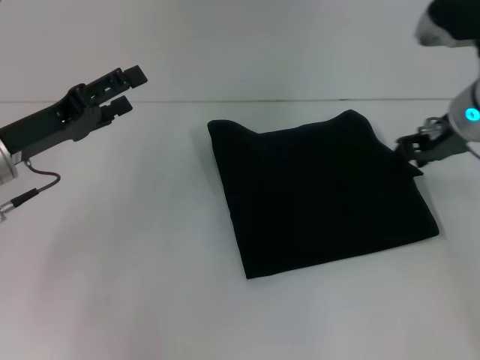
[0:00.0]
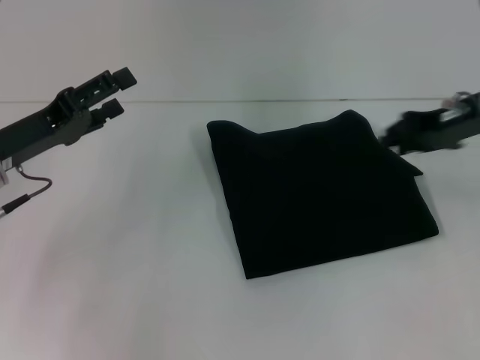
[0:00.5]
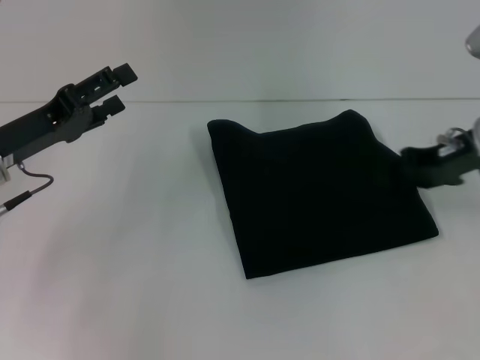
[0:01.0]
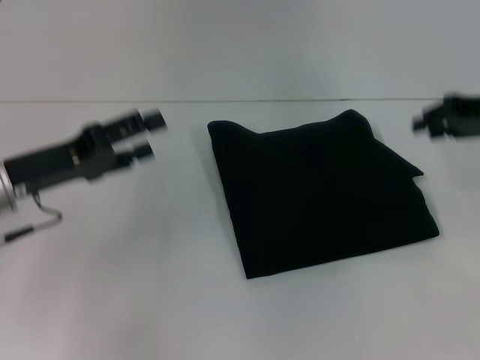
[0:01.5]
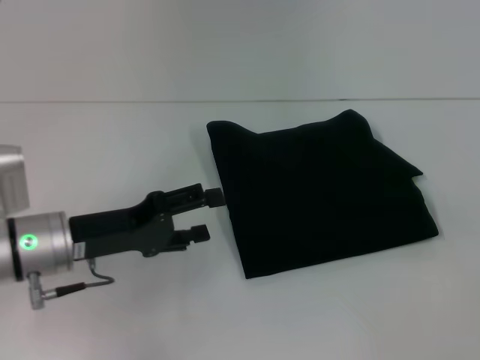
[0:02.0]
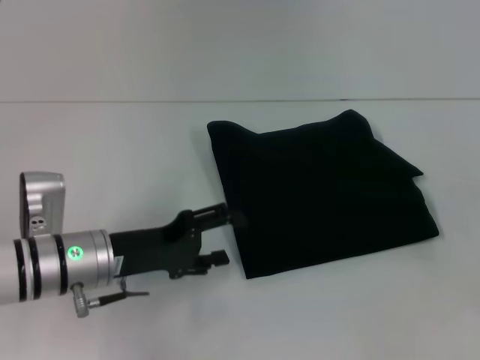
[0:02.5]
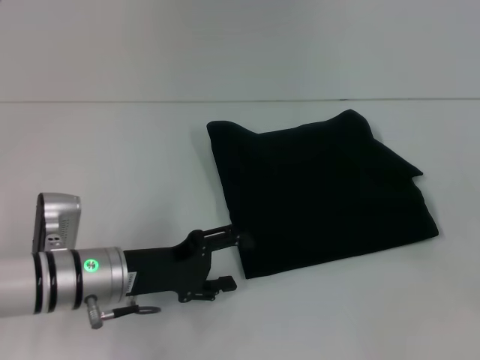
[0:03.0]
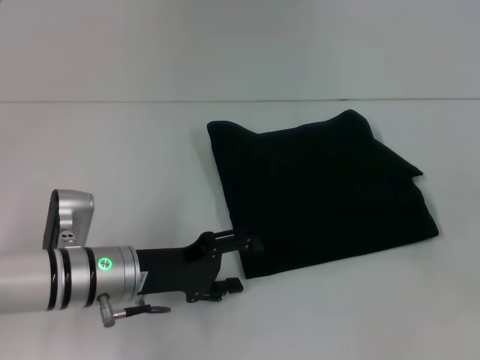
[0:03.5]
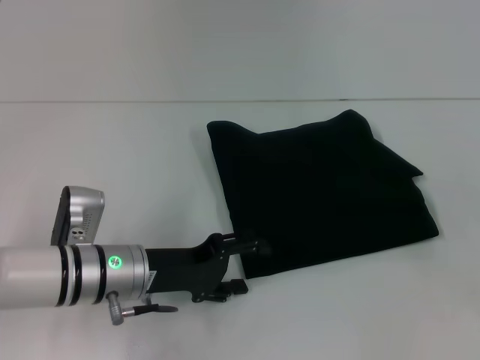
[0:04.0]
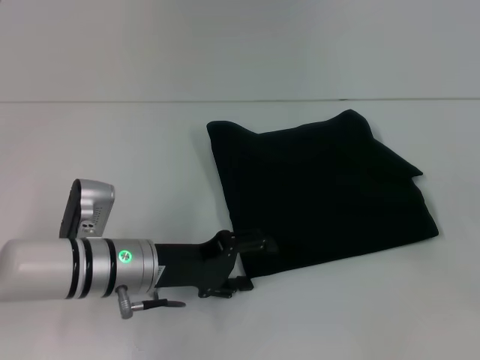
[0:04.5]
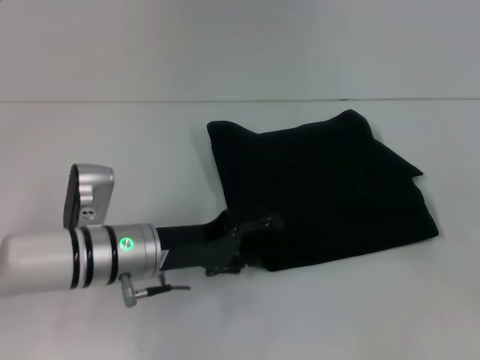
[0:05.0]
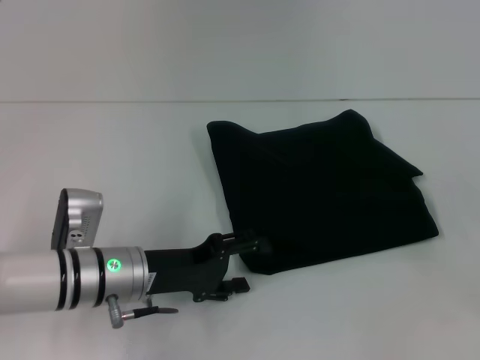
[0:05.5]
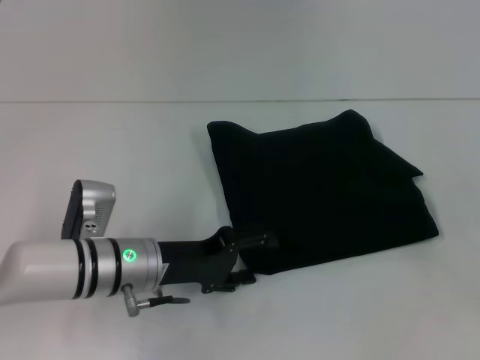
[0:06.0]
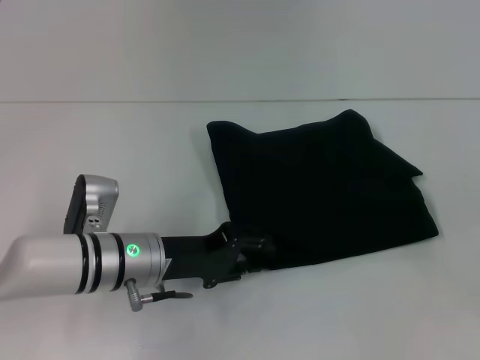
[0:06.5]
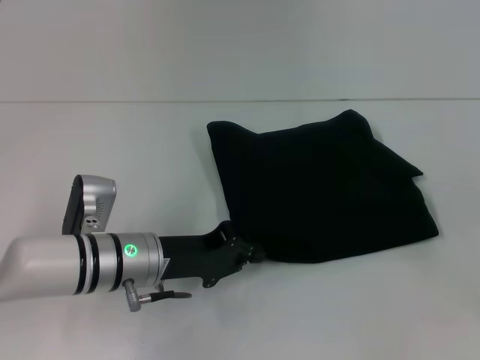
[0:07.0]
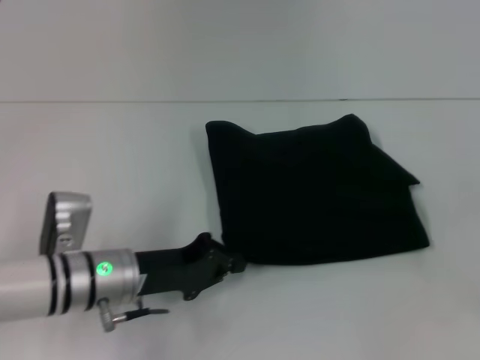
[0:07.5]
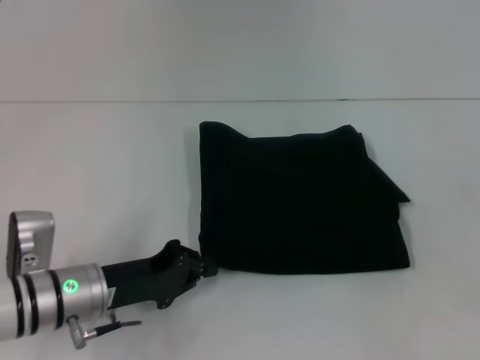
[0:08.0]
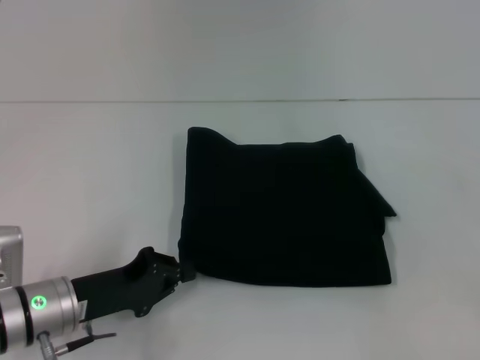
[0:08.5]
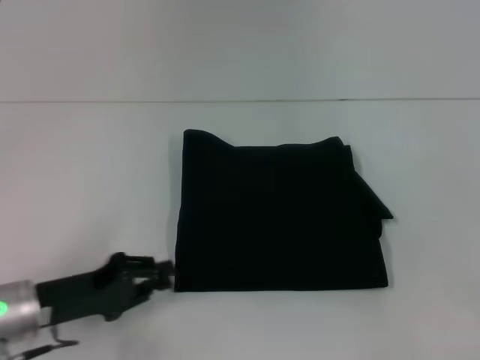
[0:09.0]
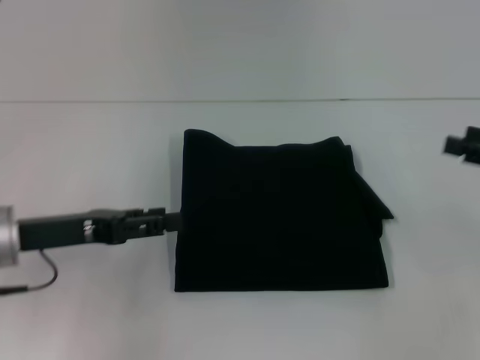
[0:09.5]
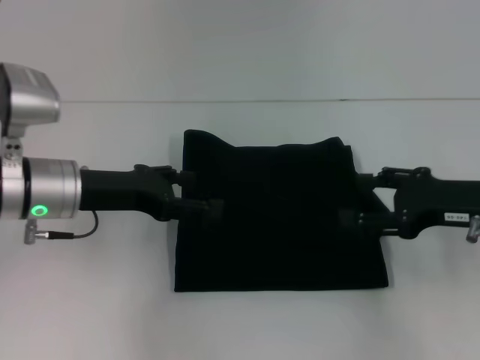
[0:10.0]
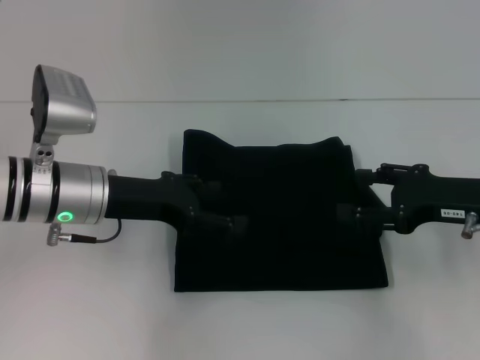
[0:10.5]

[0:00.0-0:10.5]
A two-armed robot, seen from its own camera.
0:00.0 to 0:02.0: The right gripper goes roughly 20 cm to the right and backward. Meanwhile the left gripper changes place by approximately 5 cm.
0:02.0 to 0:04.0: The left gripper travels to the right by some 5 cm.
0:04.0 to 0:06.5: There are only small adjustments of the grippers.
0:06.5 to 0:08.5: The left gripper travels to the left and backward by roughly 10 cm, and closes up.
0:08.5 to 0:10.5: The right gripper heads to the left, covering roughly 10 cm. The left gripper moves upward and forward, roughly 15 cm, and opens up.

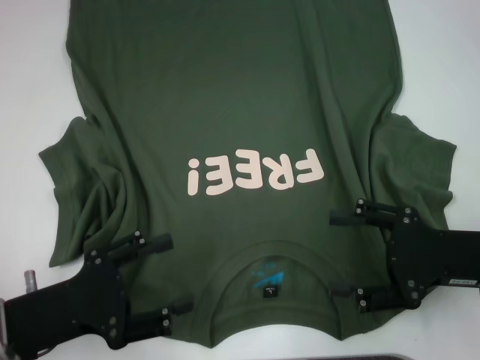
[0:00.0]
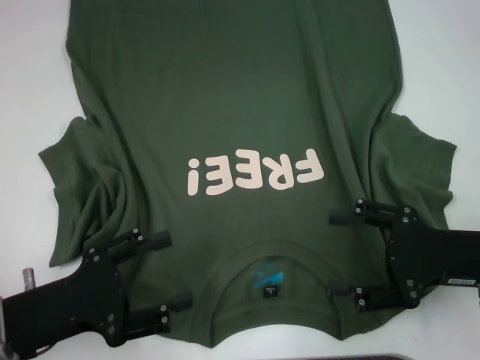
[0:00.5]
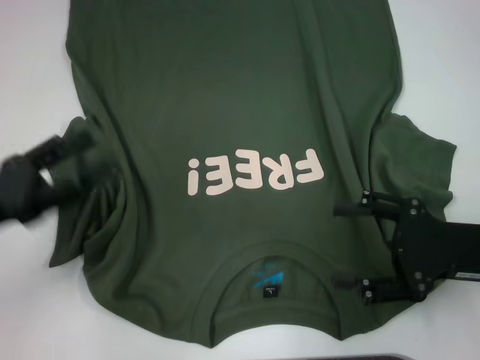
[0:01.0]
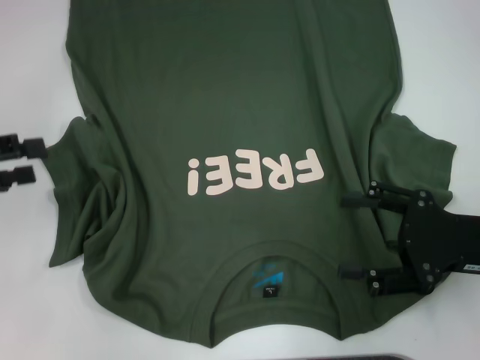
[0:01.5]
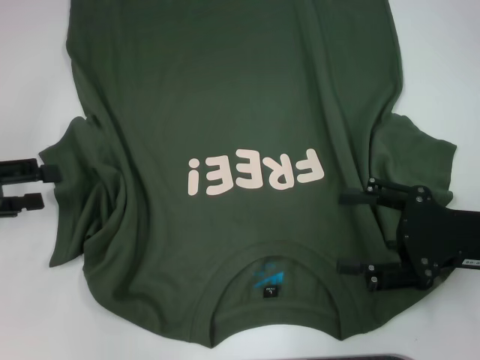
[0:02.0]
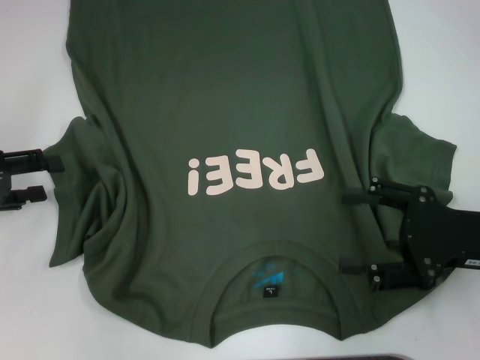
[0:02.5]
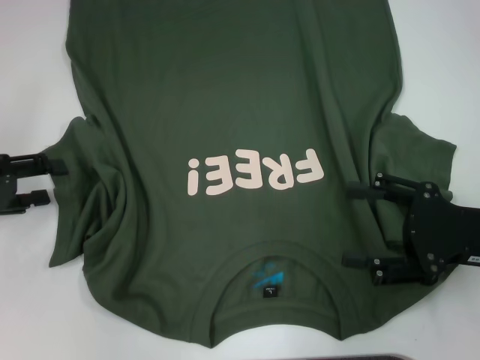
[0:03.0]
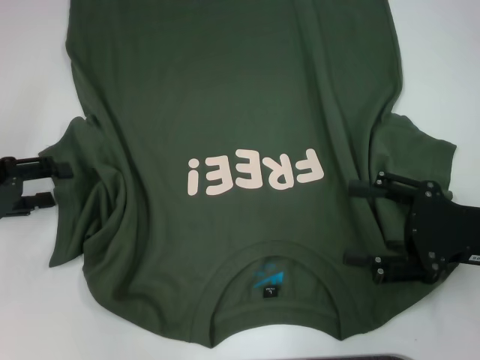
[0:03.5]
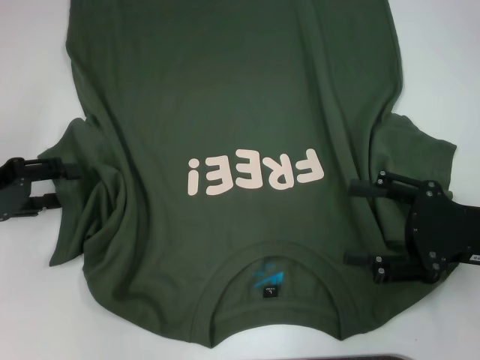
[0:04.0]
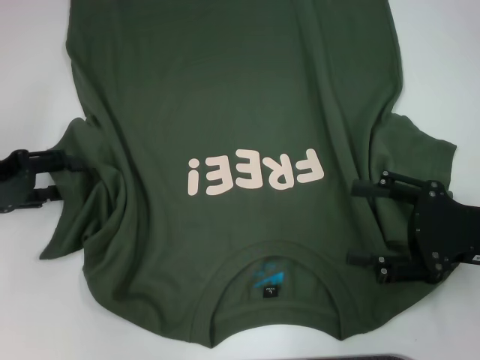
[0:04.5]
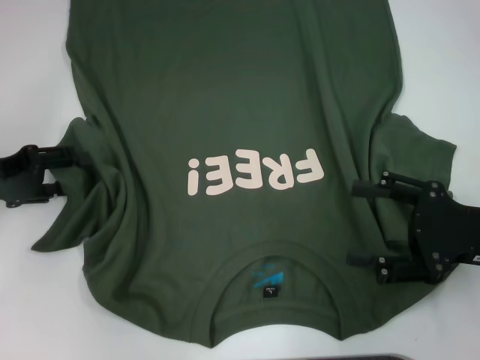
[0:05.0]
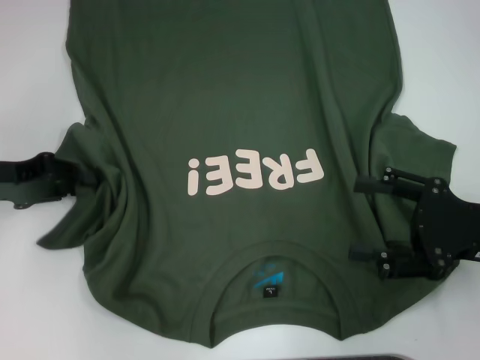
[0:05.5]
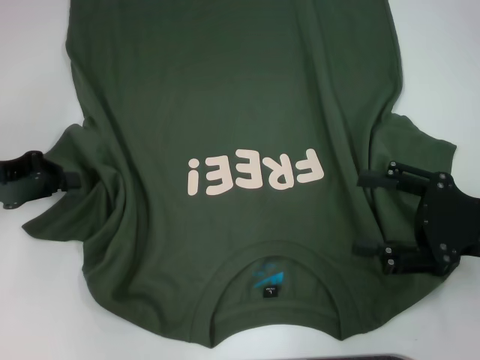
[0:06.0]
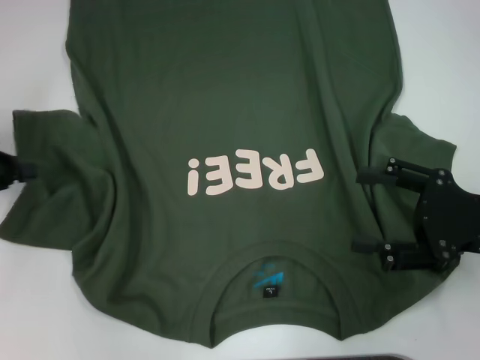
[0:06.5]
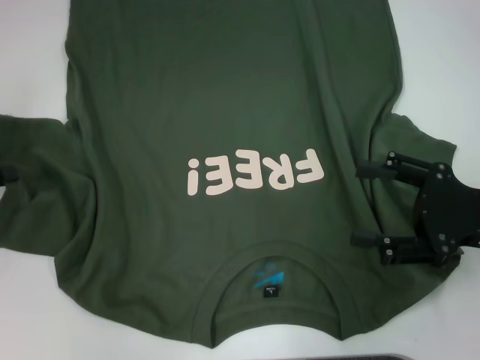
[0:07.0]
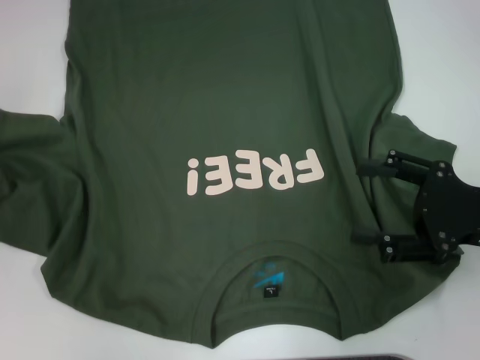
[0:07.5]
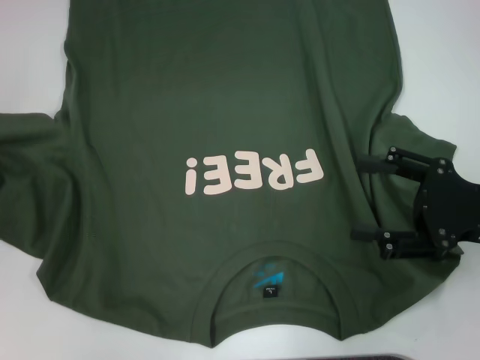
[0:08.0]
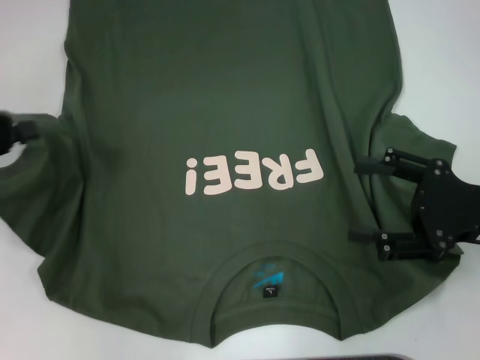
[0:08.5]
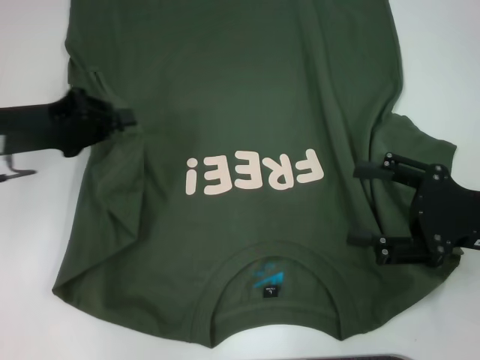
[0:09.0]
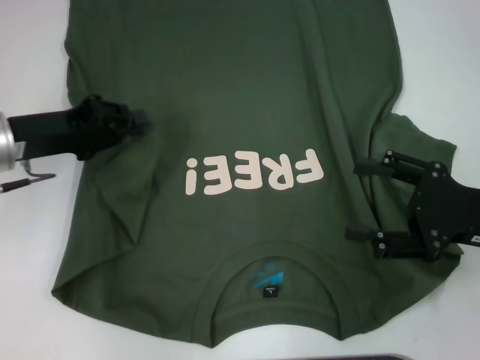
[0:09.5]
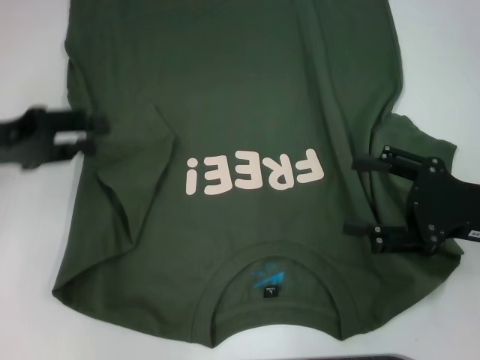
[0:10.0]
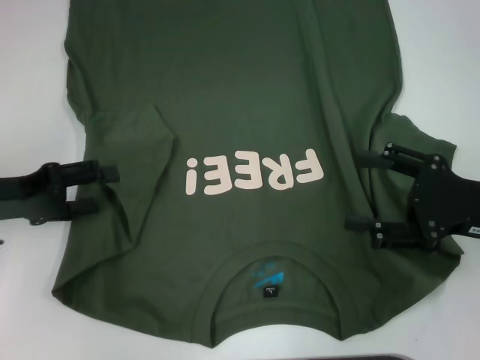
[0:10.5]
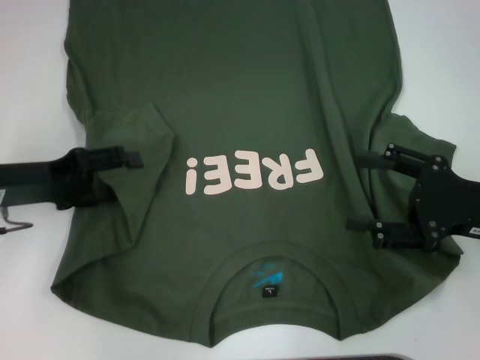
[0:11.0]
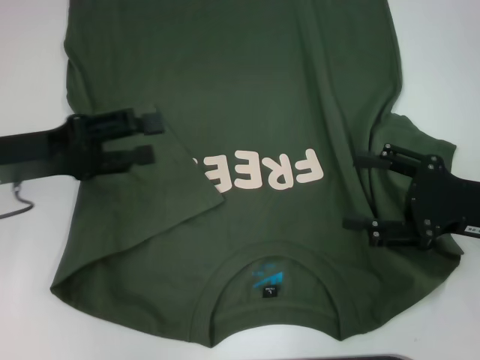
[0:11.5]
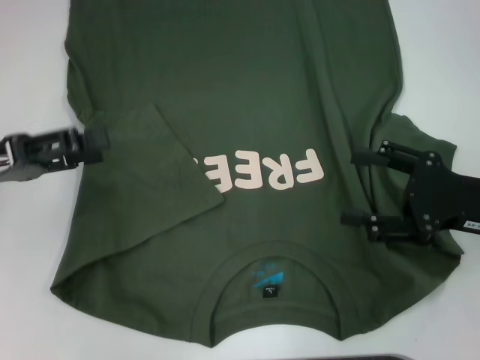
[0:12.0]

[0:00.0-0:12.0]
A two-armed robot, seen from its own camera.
Step, 0:00.0 to 0:11.5: Fold the bottom left sleeve with your left hand.
0:00.0 to 0:02.0: The left gripper moves forward, to the left and upward, approximately 15 cm.
0:02.0 to 0:04.0: The grippers stay close to where they were, moving slightly.
0:04.0 to 0:06.0: The left gripper closes up.
0:06.0 to 0:08.0: The left gripper heads to the left, covering roughly 5 cm.
0:08.0 to 0:10.0: The left gripper travels to the right by about 10 cm, and opens up.
0:10.0 to 0:12.0: The left gripper opens its fingers.

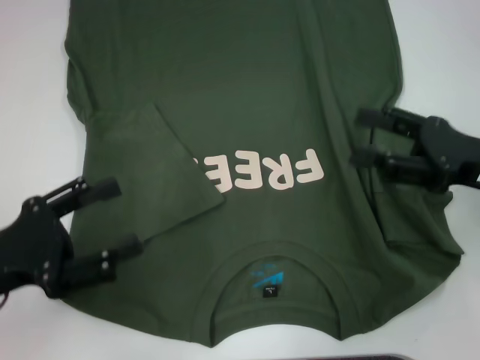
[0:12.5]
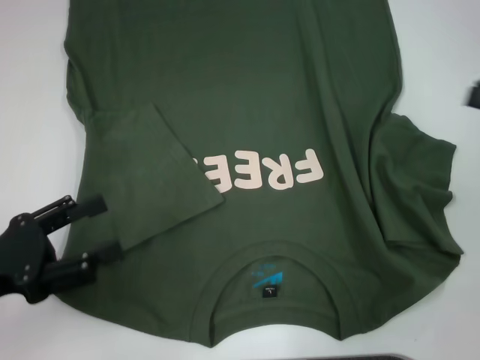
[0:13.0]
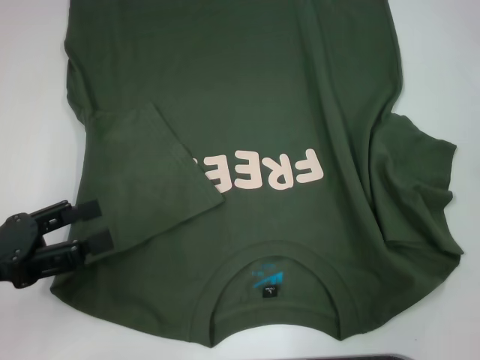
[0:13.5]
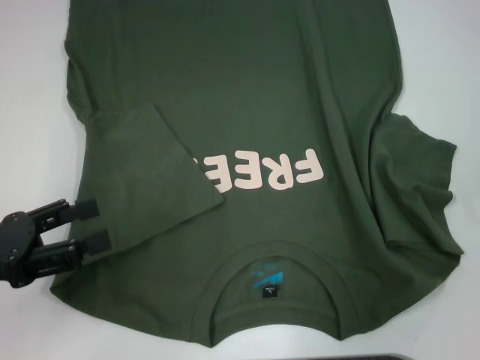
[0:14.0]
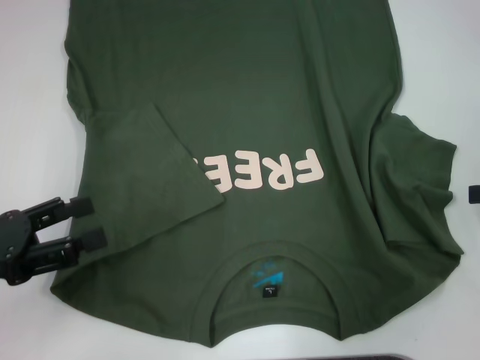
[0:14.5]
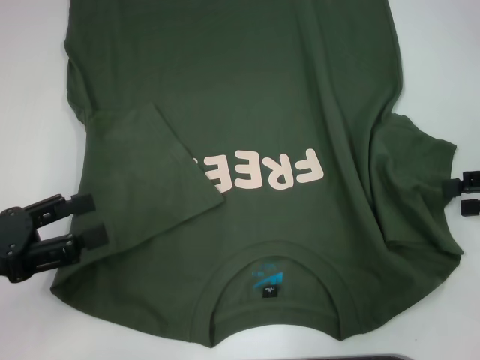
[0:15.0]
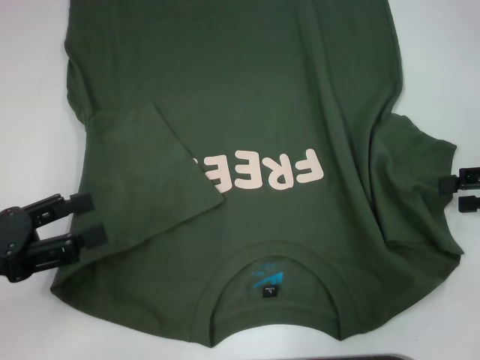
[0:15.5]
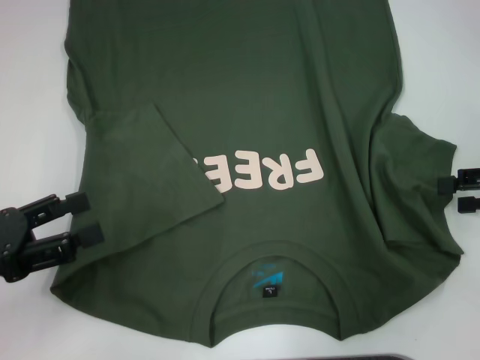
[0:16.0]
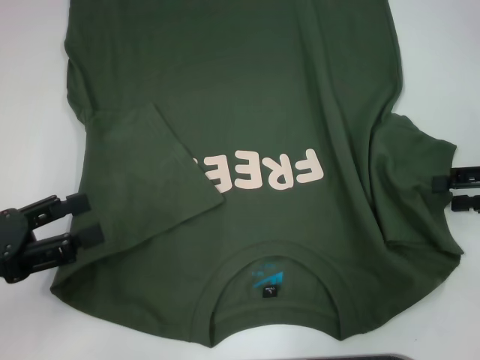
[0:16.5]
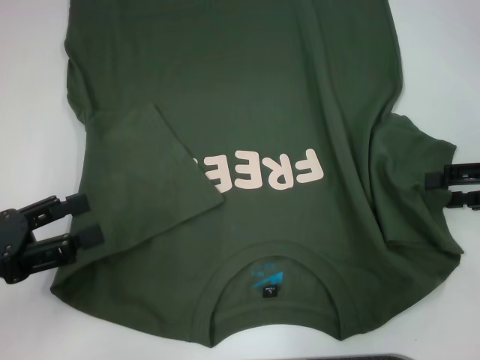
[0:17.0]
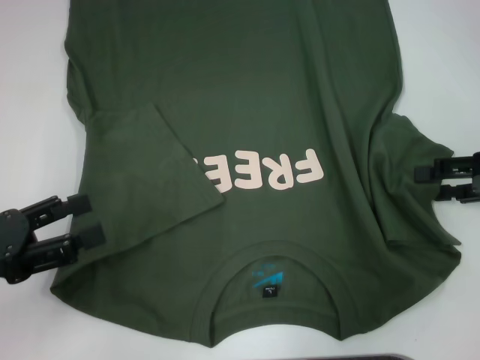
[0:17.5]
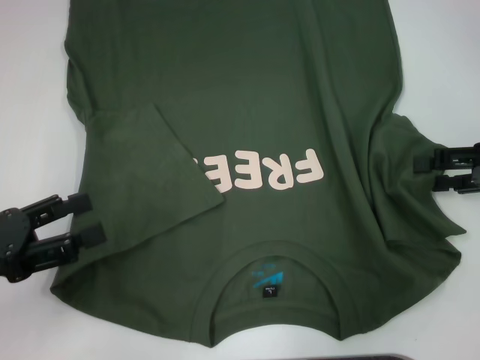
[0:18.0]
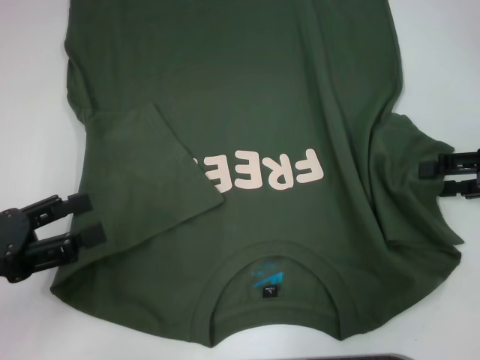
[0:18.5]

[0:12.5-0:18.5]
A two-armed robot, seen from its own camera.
0:12.5 to 0:14.5: The right gripper goes roughly 10 cm to the right.
0:14.5 to 0:18.5: The grippers make only small movements.
